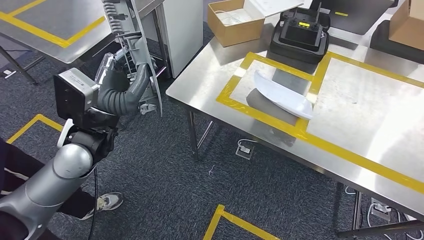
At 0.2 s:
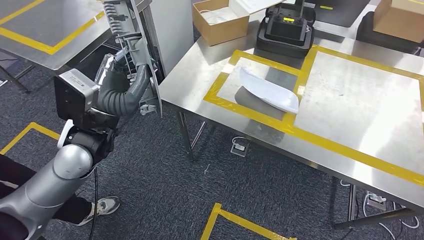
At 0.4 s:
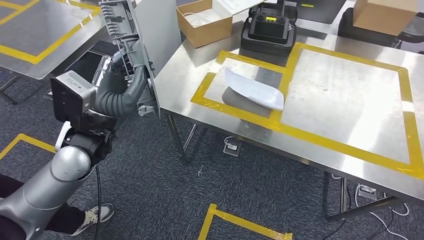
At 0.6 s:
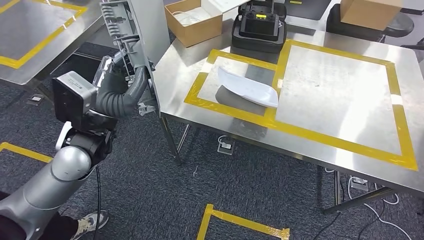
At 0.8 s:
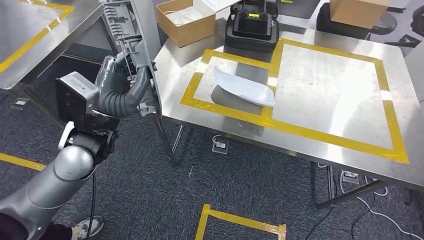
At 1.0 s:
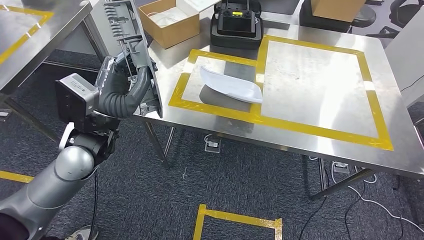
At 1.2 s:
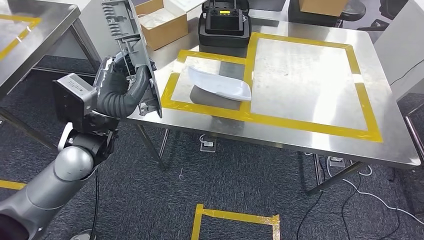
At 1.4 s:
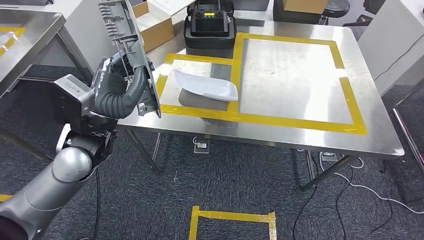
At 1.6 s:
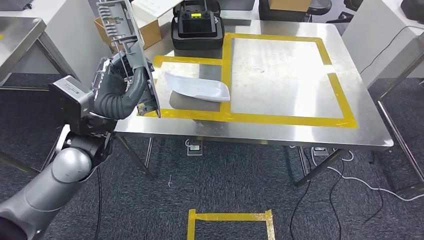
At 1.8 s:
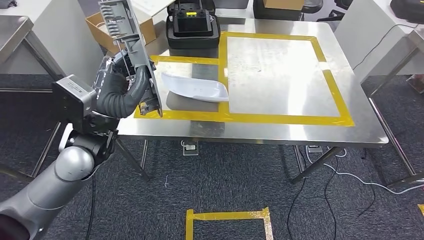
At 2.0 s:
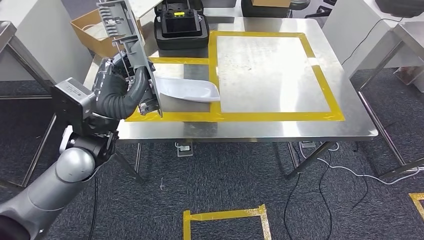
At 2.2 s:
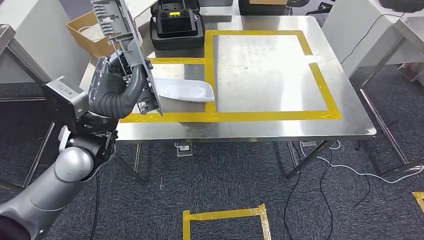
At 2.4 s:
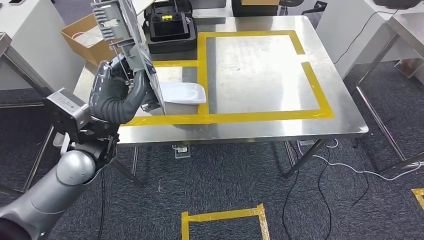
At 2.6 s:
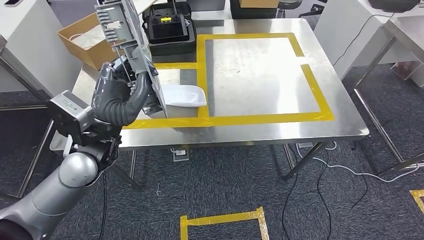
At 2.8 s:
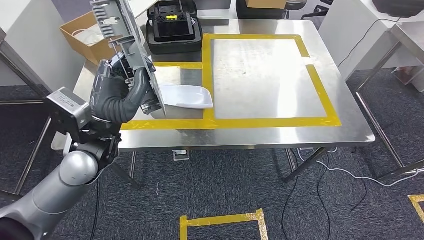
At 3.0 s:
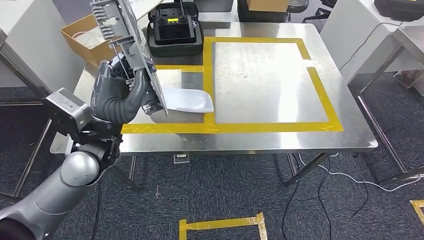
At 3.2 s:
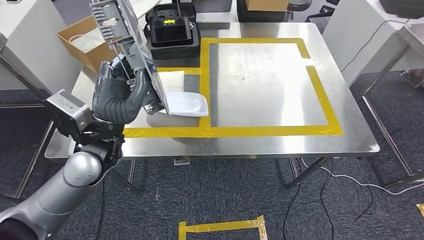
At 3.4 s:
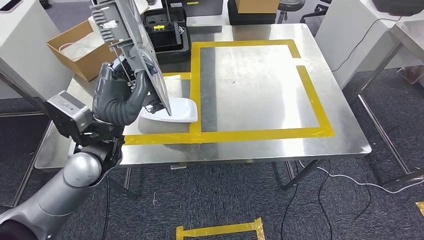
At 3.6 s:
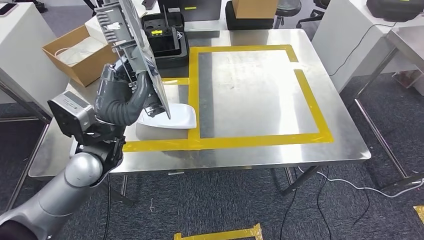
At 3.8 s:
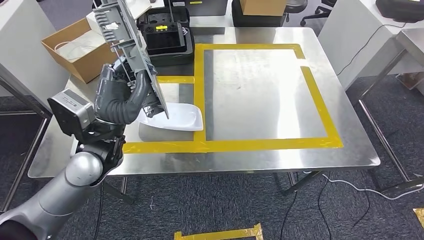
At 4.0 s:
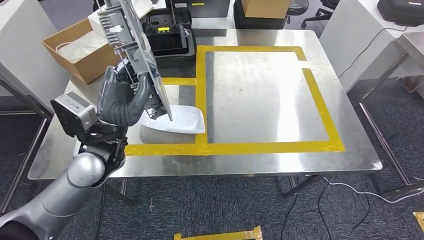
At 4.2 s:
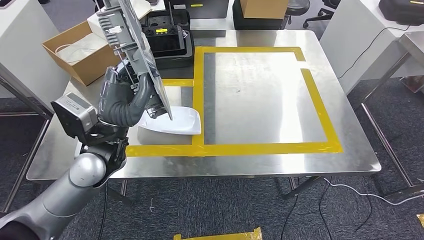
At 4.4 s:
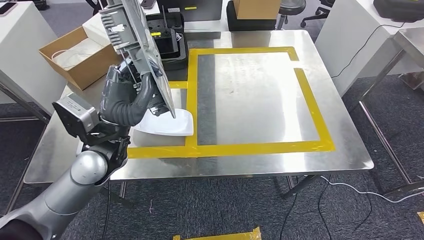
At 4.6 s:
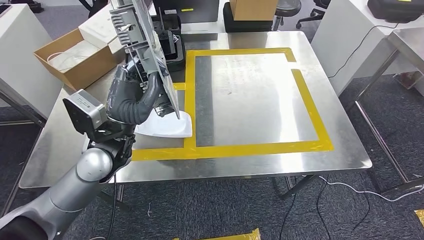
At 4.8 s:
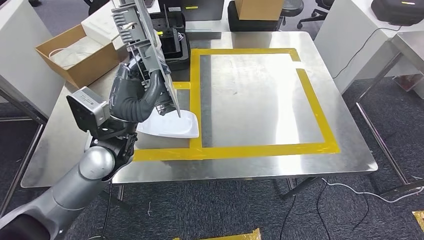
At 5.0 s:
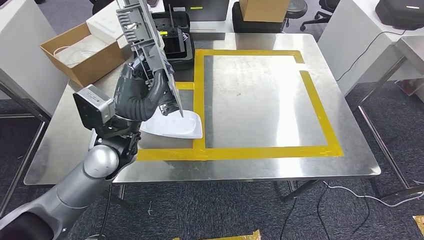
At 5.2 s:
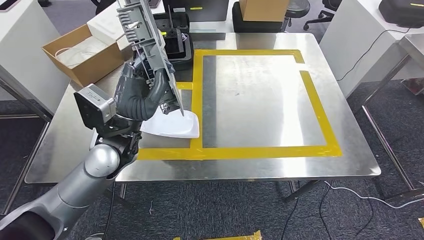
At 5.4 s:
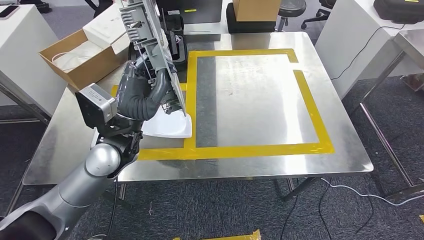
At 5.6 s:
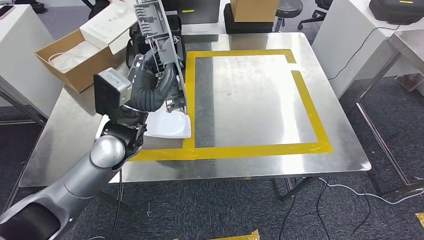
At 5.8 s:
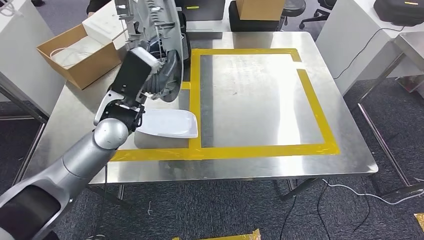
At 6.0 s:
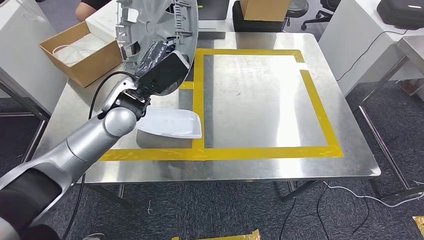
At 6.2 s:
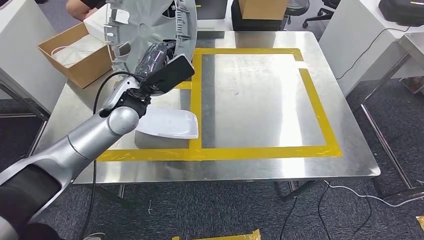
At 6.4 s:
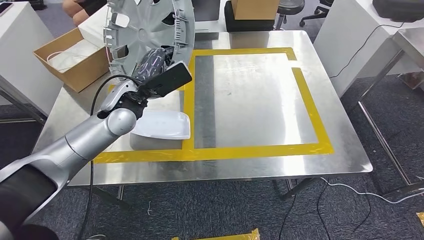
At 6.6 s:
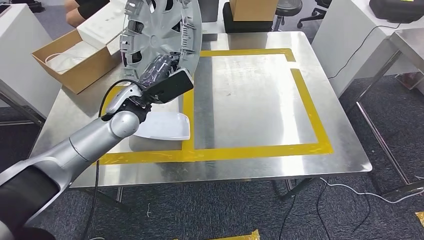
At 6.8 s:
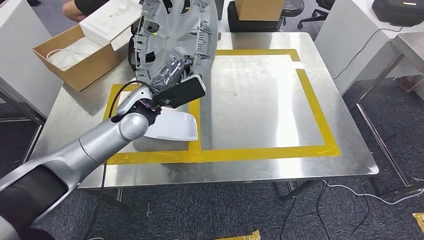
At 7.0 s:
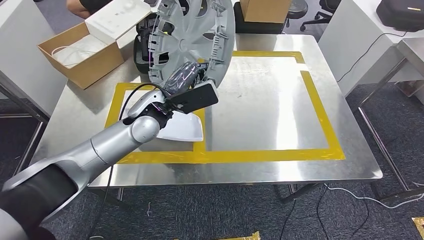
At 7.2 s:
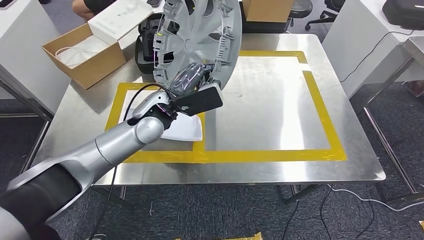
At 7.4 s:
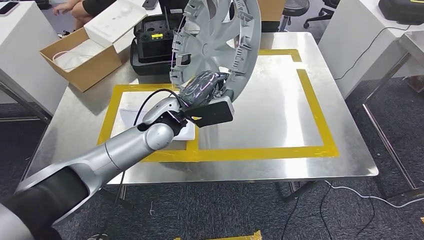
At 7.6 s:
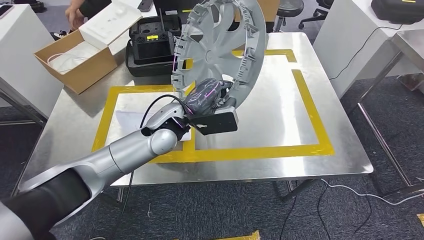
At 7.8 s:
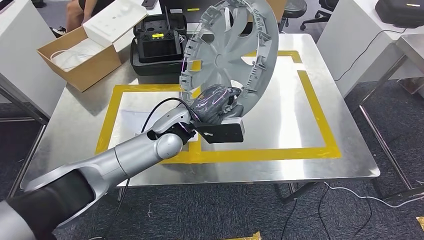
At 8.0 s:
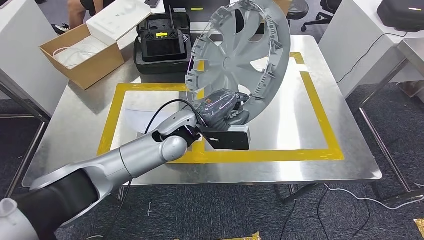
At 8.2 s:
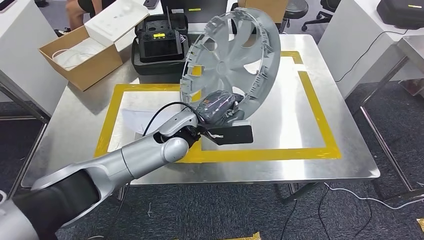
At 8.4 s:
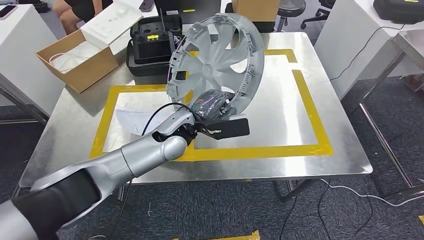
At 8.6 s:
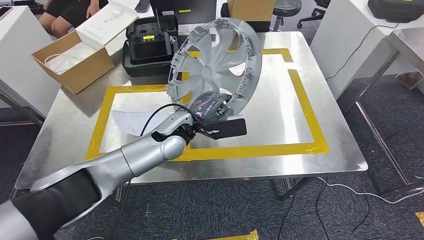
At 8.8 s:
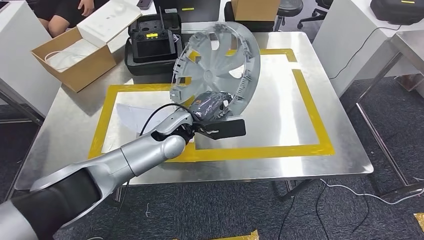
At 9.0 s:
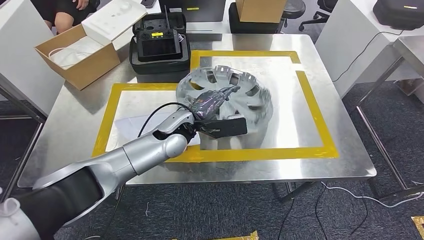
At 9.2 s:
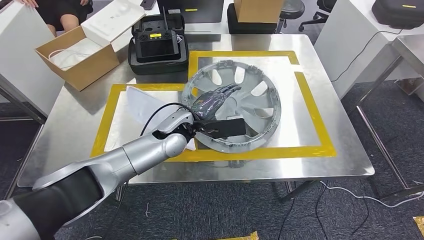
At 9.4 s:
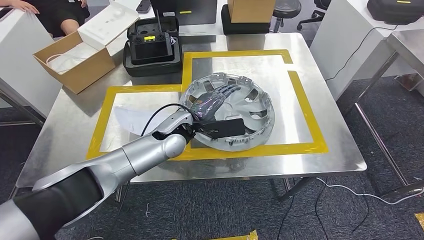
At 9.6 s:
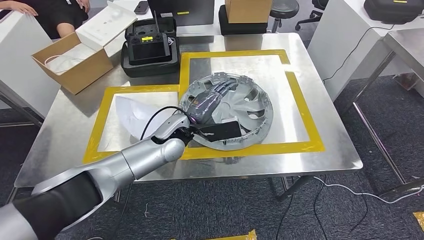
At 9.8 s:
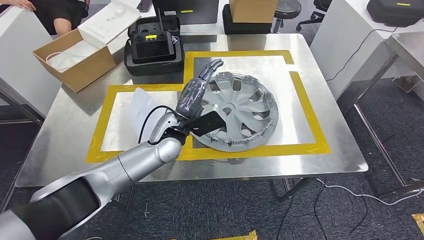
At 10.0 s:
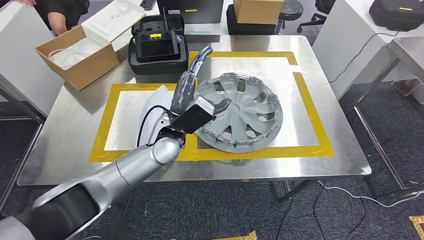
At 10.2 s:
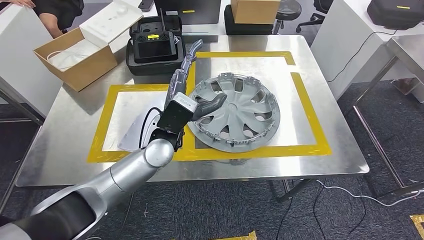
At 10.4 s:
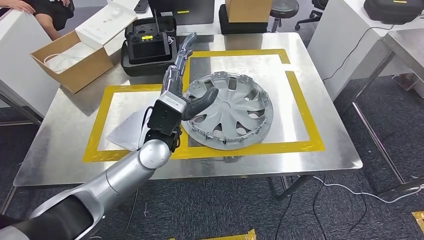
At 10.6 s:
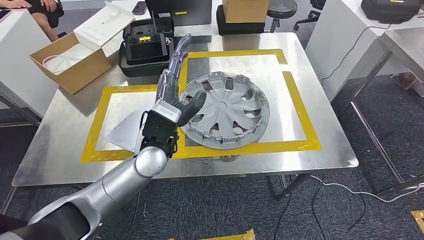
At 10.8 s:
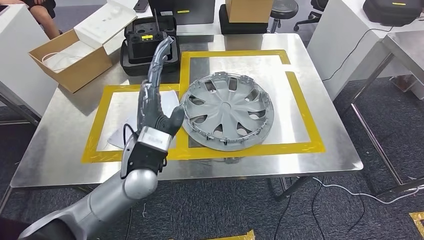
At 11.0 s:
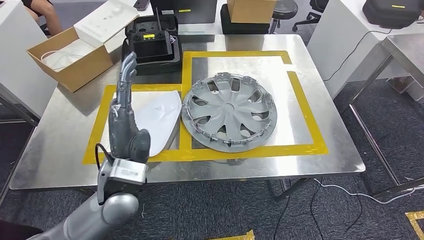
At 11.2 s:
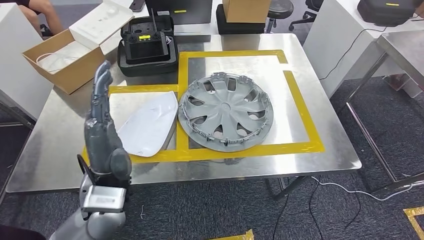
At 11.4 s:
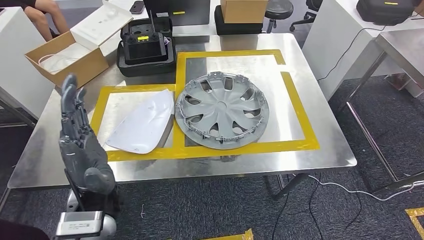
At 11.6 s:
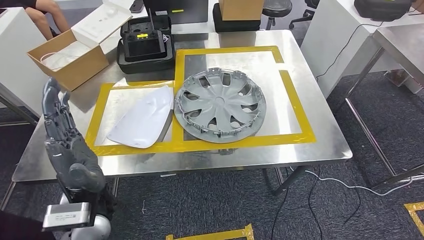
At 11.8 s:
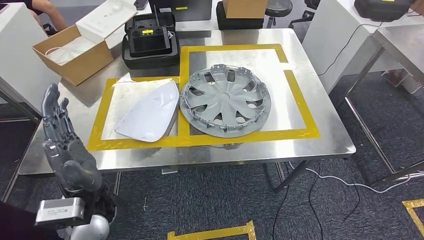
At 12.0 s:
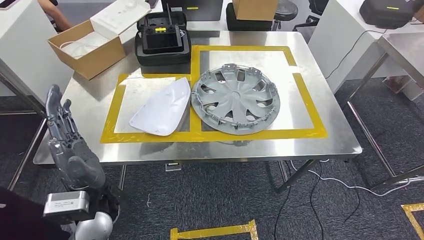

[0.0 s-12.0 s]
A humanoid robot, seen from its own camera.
Step, 0.0 to 10.6 s: Insert the small component into the corresponding slot on the workbench.

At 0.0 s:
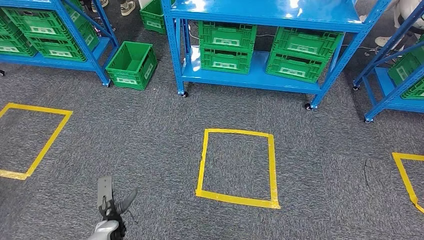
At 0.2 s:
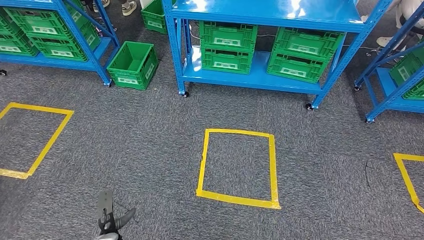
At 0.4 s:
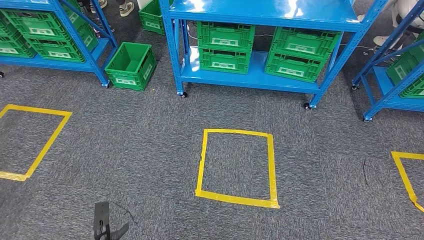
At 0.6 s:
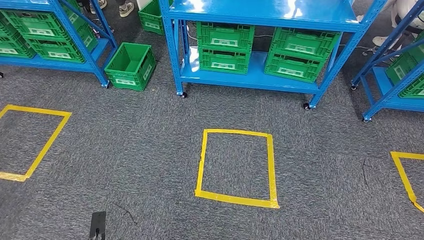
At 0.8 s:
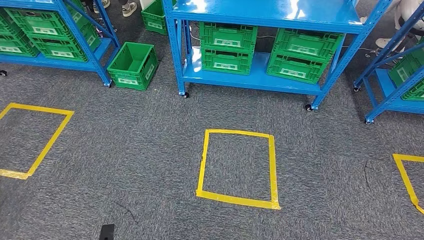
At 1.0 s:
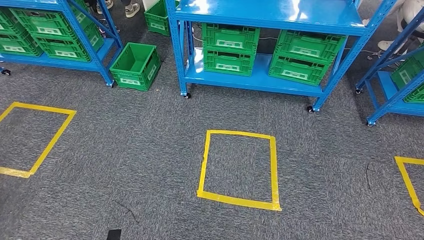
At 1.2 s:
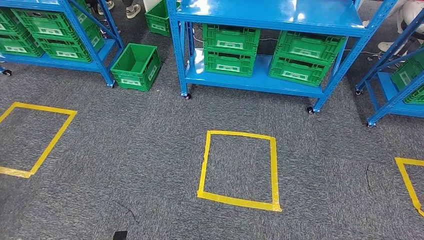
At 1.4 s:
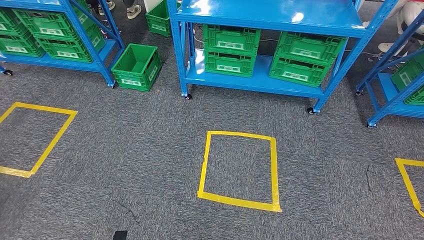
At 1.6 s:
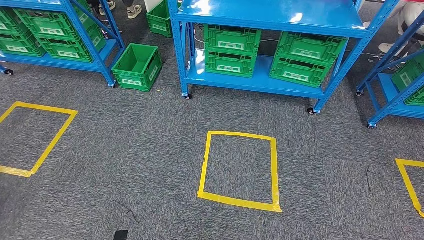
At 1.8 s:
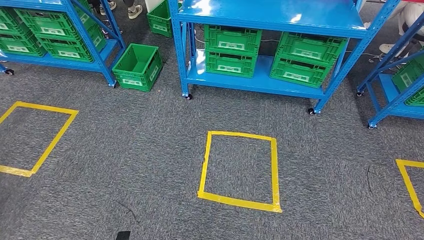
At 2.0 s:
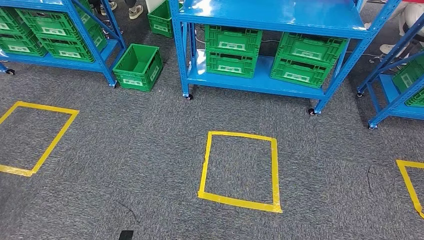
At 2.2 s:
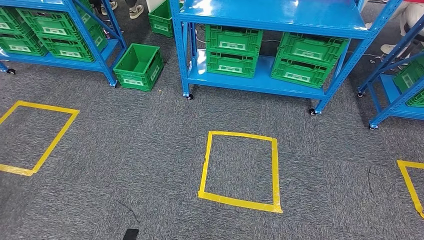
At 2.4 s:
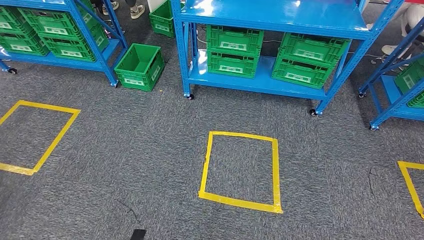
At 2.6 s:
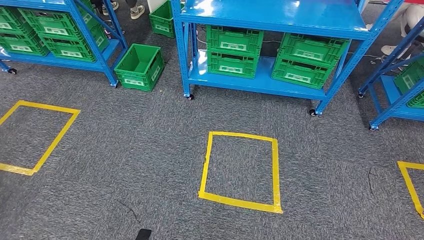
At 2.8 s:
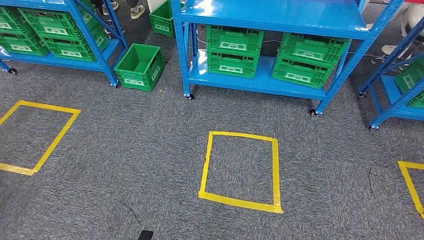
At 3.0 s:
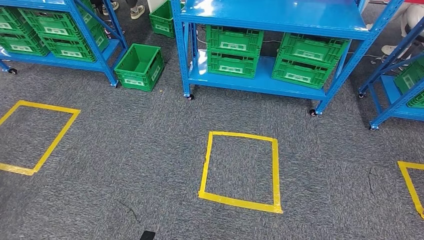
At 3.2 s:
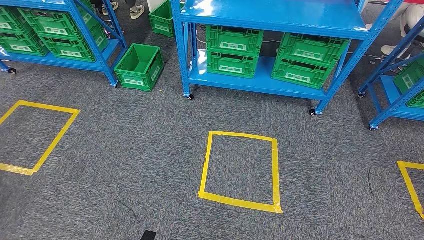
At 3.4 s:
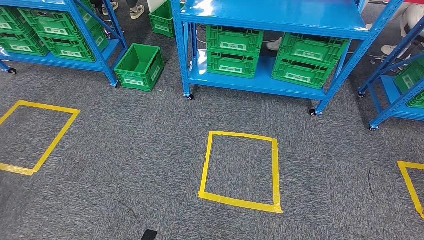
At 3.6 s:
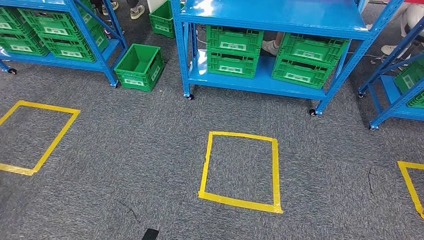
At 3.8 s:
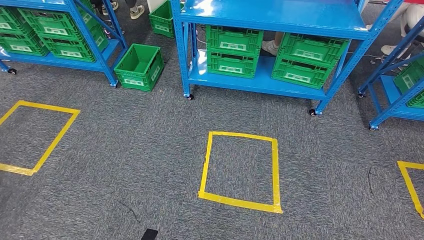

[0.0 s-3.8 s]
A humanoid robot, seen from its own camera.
Step, 0.0 to 3.8 s: Move to the initial position of the workbench.
0.0 to 1.2 s: The left hand is displaced backward and downward by roughly 10 cm.
1.2 to 2.6 s: The hands stay close to where they were, moving slightly.
